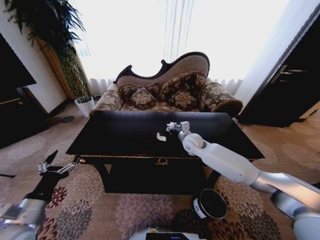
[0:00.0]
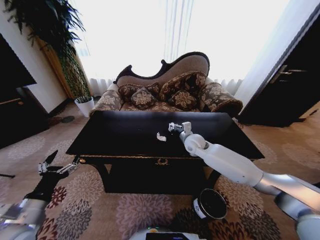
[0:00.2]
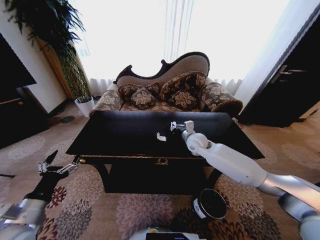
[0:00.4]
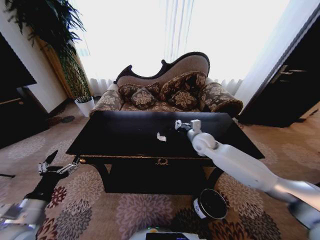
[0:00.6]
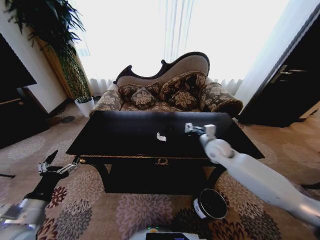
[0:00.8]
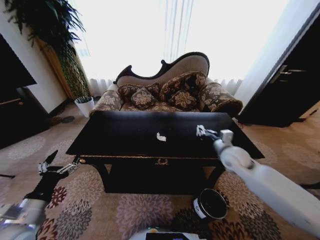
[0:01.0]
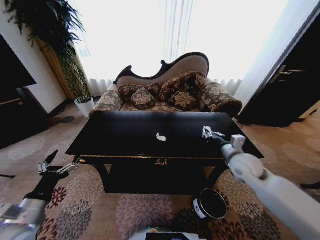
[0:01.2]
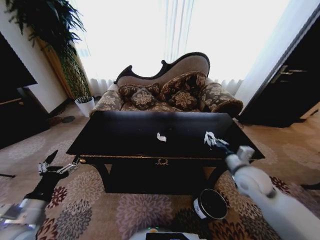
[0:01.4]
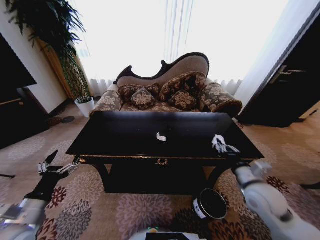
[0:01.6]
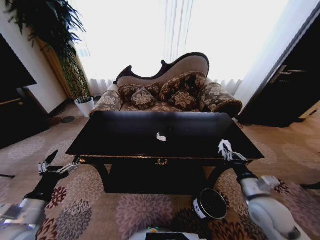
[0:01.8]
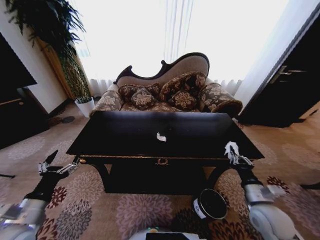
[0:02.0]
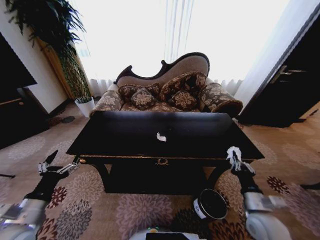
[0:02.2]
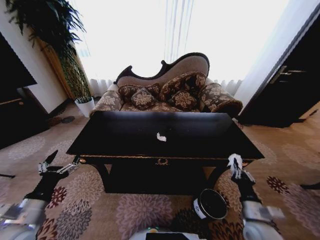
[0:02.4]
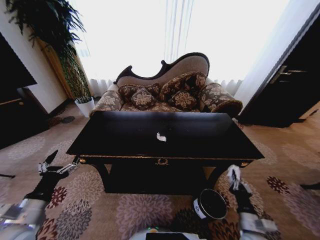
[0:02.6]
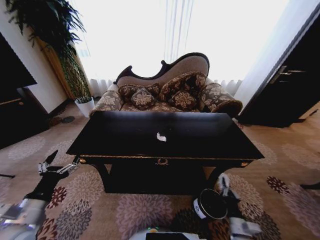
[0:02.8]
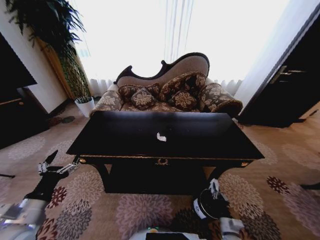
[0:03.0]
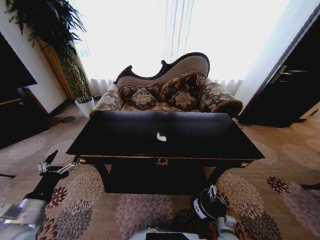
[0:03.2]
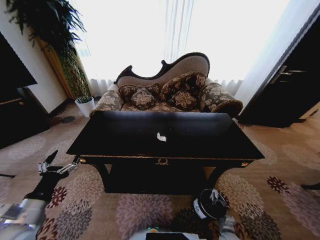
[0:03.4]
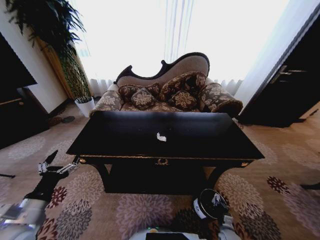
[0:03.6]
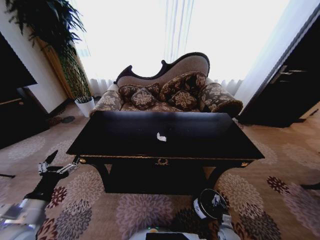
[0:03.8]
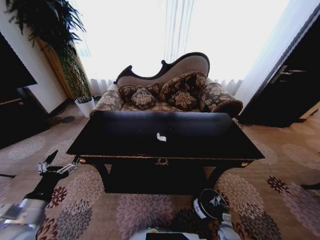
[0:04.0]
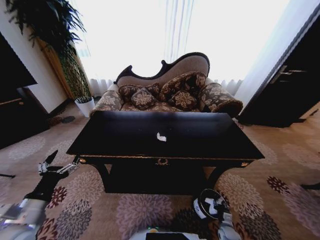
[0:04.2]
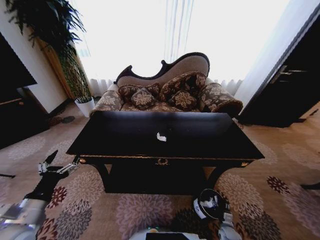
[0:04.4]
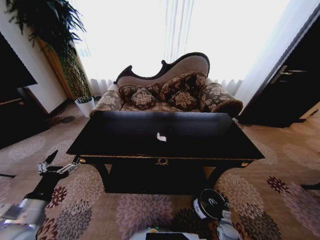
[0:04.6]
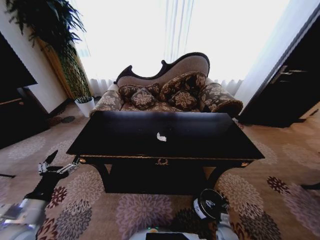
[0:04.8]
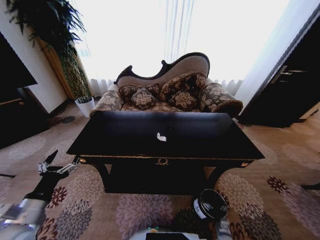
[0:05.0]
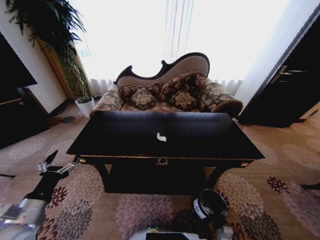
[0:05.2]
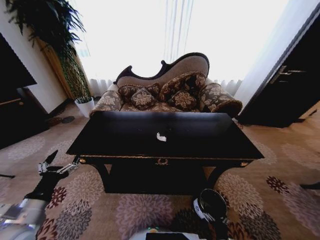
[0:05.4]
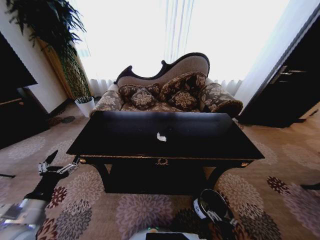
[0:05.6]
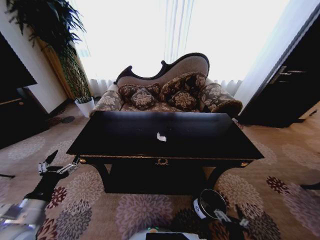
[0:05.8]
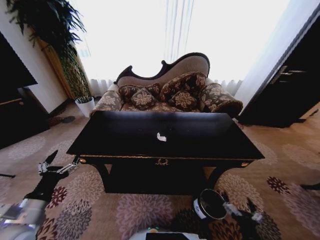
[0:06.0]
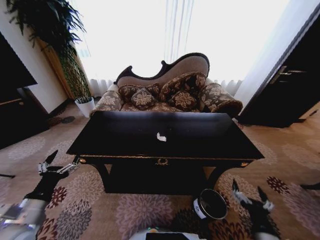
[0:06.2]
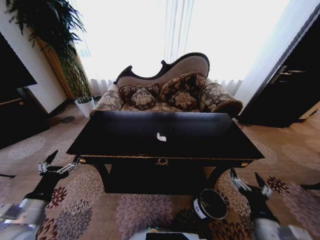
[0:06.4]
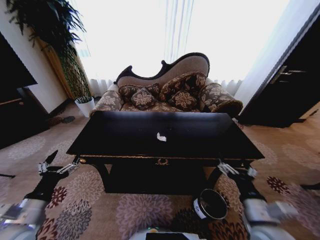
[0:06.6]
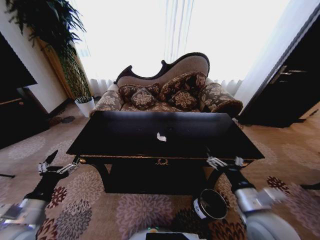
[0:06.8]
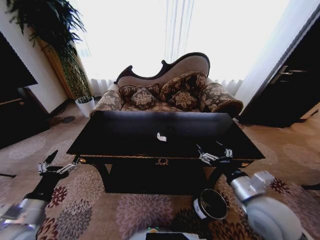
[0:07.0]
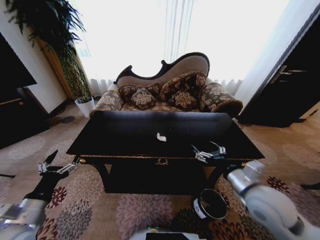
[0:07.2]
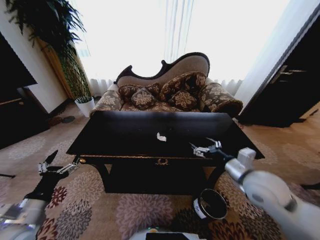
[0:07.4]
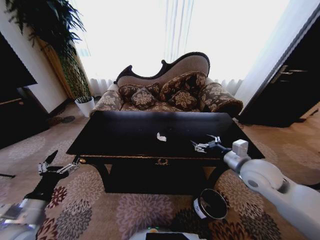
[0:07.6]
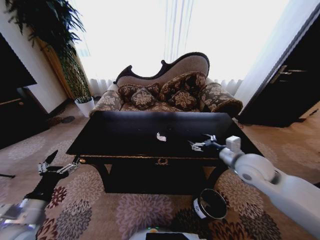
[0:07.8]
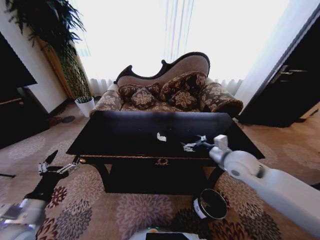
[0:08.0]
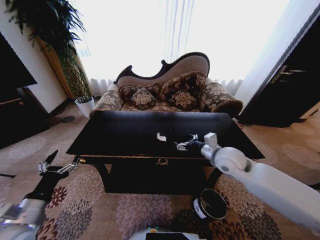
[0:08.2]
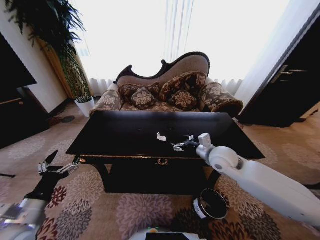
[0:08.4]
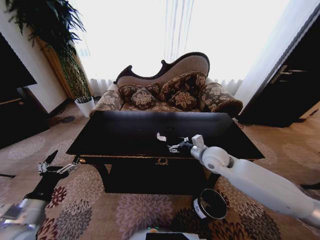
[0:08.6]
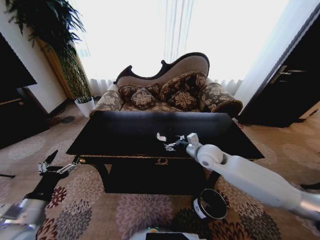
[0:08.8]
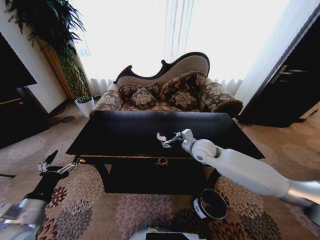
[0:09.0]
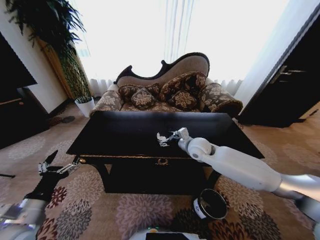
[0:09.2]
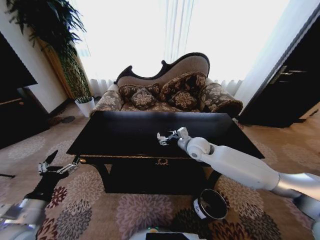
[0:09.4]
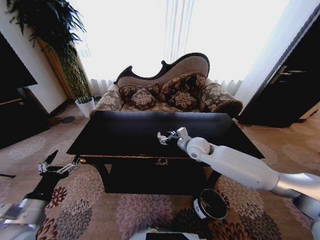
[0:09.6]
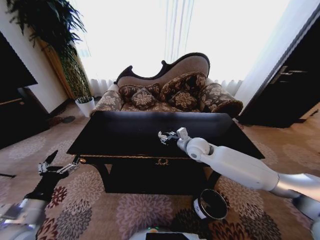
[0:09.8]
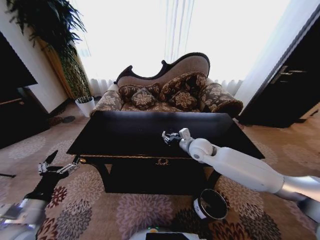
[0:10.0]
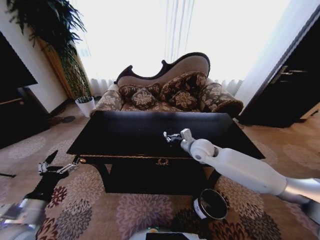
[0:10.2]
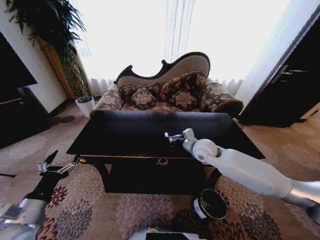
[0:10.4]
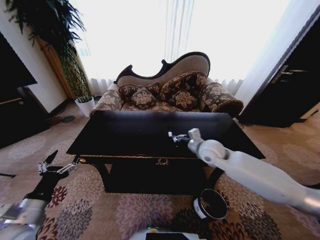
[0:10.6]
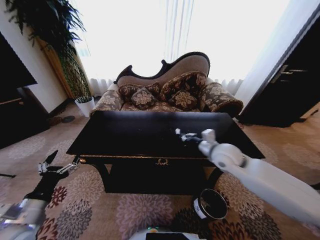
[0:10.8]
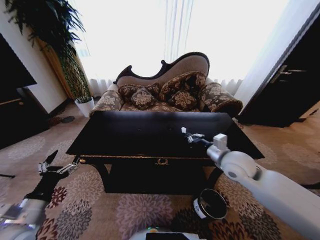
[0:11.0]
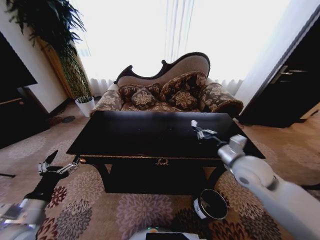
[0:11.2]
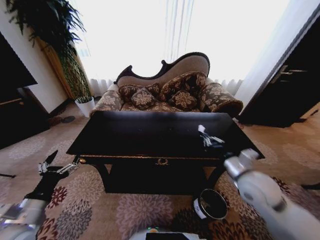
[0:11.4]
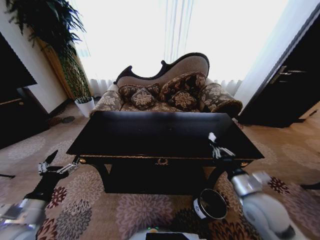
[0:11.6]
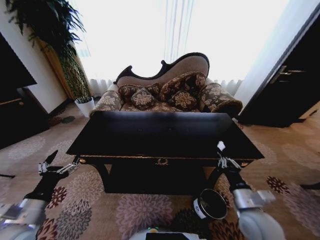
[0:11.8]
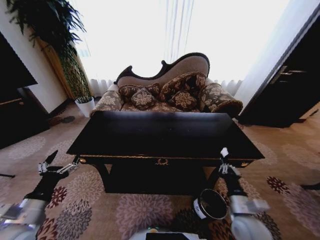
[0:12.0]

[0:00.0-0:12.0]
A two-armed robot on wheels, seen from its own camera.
Task of the whole recording: Move to the front of the table and place the trash on the table into the trash bin.
0:00.0 to 0:01.6: The right gripper heads backward and to the right, covering some 30 cm.
0:01.6 to 0:03.0: The right gripper moves downward and backward, roughly 30 cm.
0:03.0 to 0:04.4: The right gripper goes about 15 cm downward and to the right, and opens its fingers.
0:04.4 to 0:06.0: The right gripper is displaced upward and backward by about 30 cm, and opens its fingers.
0:06.0 to 0:07.6: The right gripper goes some 35 cm forward and upward.
0:07.6 to 0:09.0: The right gripper moves forward and to the left, approximately 15 cm.
0:09.0 to 0:10.4: The right gripper closes.
0:10.4 to 0:12.0: The right gripper travels backward and downward by roughly 30 cm.

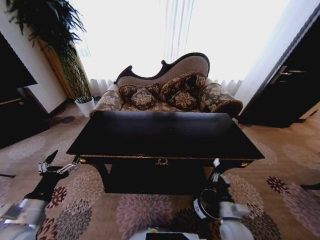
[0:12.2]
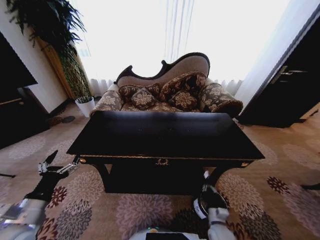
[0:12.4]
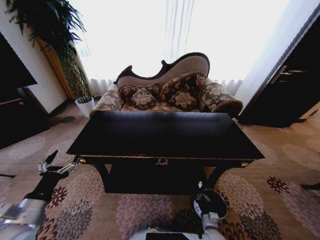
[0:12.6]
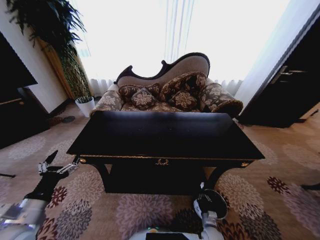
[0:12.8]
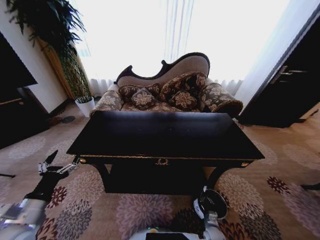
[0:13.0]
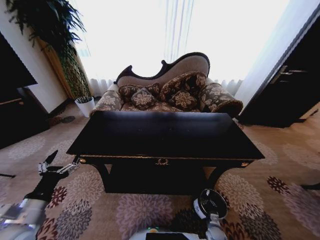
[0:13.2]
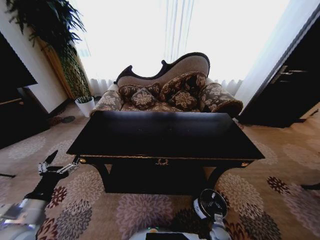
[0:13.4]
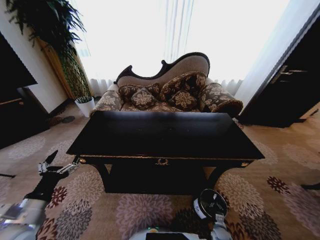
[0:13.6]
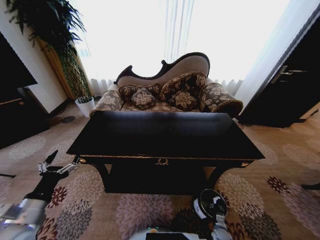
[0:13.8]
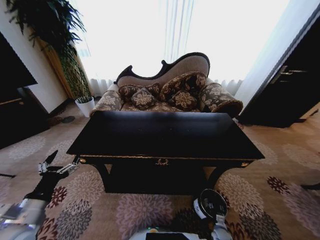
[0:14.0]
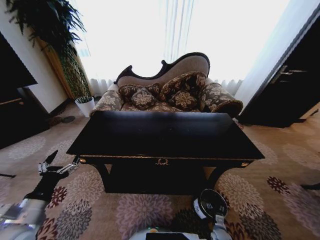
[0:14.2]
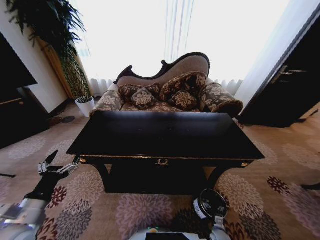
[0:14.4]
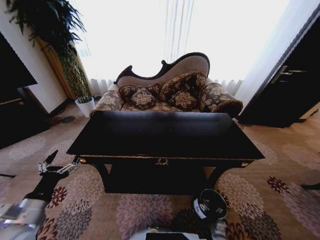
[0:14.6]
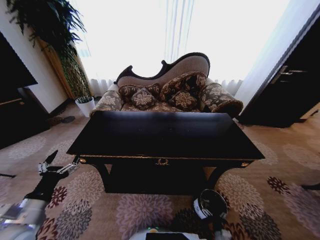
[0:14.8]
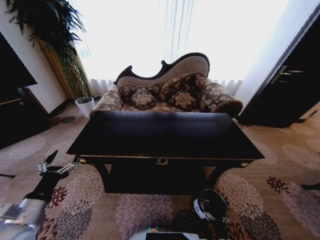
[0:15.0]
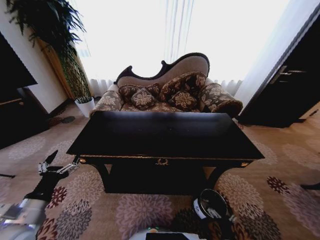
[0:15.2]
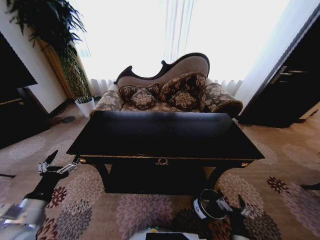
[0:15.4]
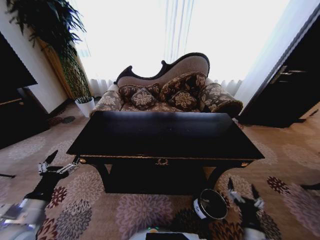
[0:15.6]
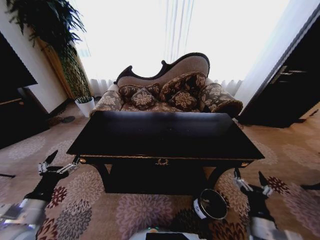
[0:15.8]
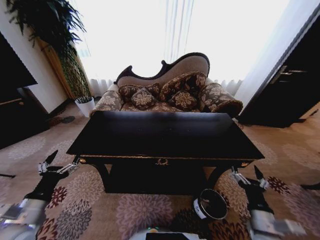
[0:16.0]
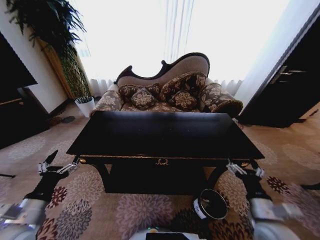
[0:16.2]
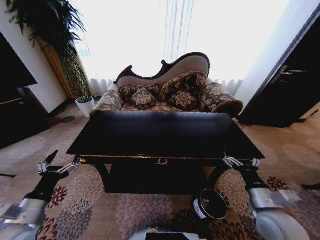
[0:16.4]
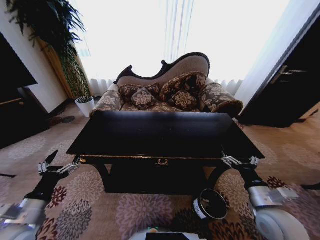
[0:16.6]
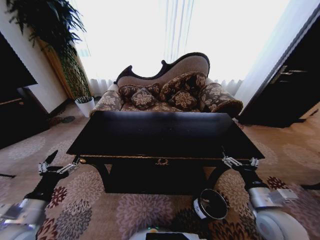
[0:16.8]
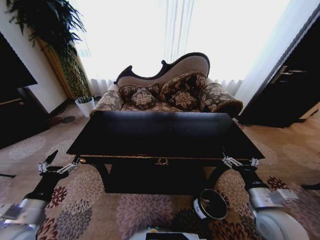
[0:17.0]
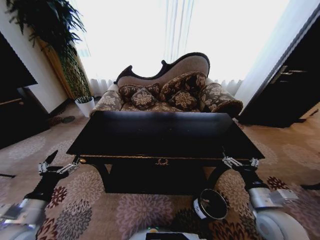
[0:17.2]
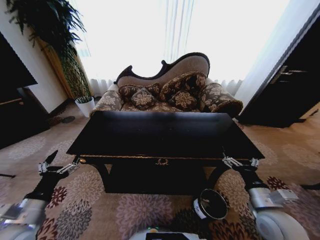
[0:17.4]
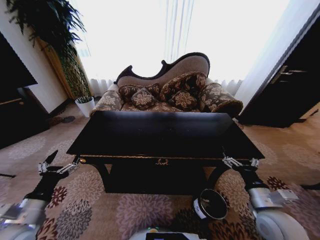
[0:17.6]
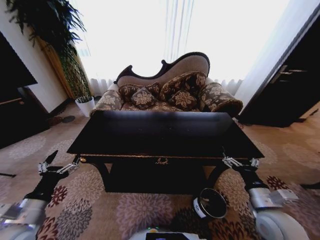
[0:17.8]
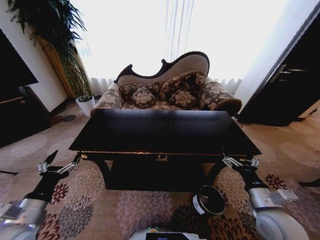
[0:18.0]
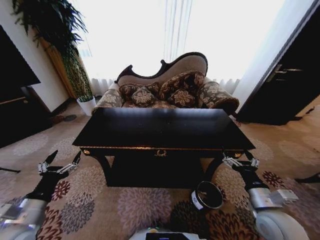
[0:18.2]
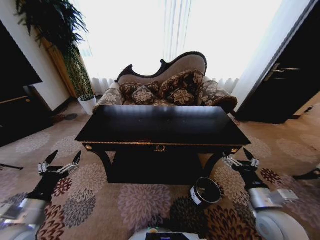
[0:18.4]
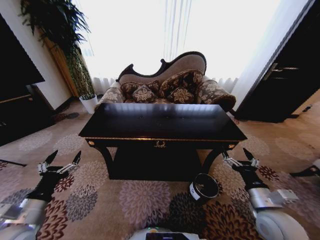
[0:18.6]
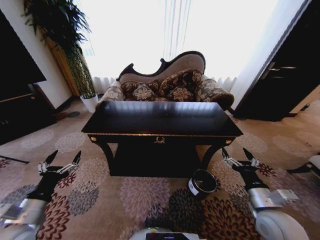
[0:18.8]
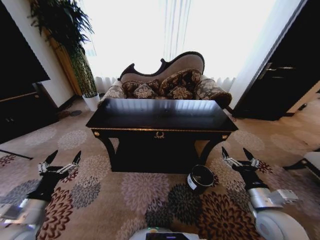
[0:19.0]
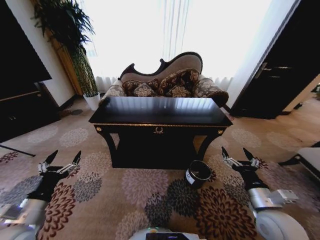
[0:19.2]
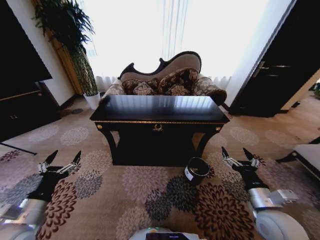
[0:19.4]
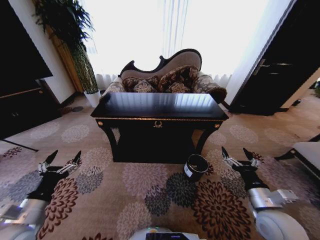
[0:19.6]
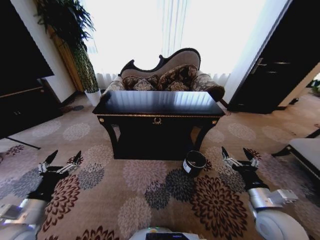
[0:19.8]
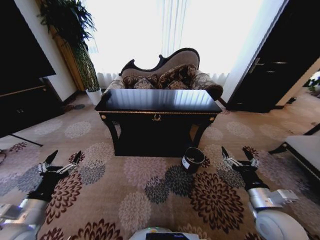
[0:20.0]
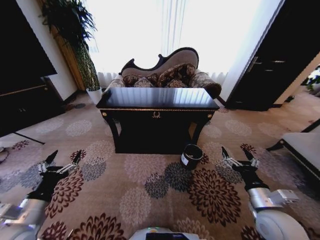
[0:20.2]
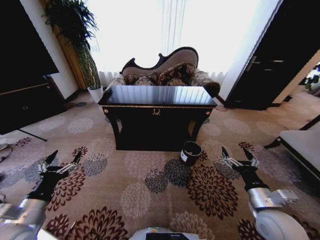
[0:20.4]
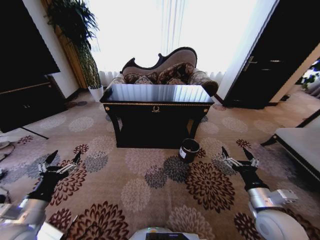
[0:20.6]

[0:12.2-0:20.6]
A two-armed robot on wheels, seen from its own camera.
Task of the whole recording: Move to the front of the table and place the trash on the table into the trash bin.
0:12.2 to 0:13.6: The right gripper is displaced downward by some 25 cm.
0:13.6 to 0:15.0: The right gripper shifts approximately 15 cm backward and upward, and opens.
0:15.0 to 0:16.4: The right gripper travels upward by some 35 cm.
0:16.4 to 0:17.8: Neither gripper changes place.

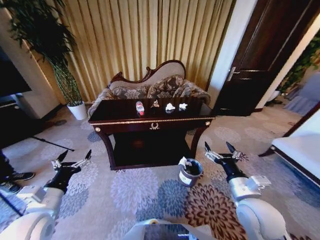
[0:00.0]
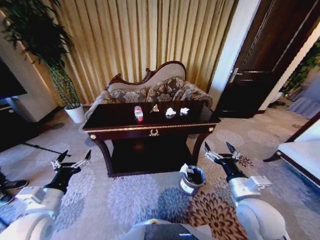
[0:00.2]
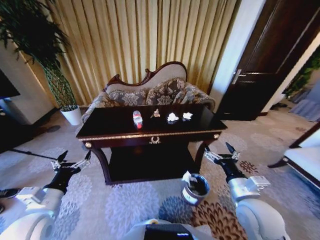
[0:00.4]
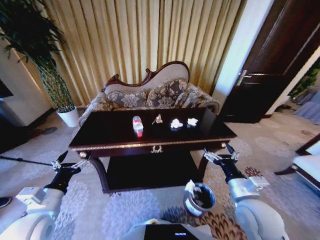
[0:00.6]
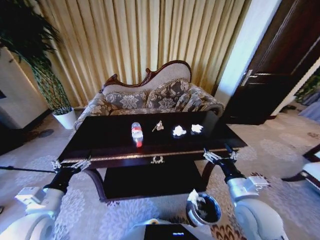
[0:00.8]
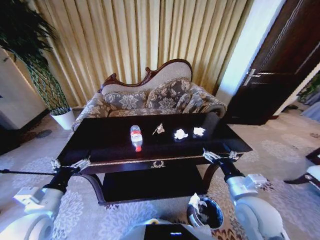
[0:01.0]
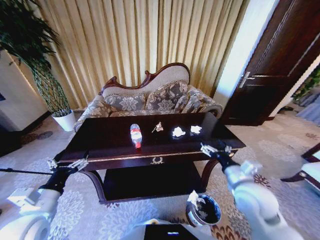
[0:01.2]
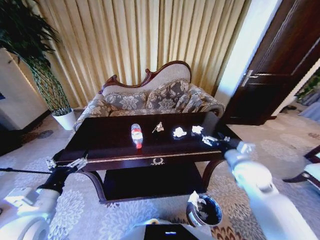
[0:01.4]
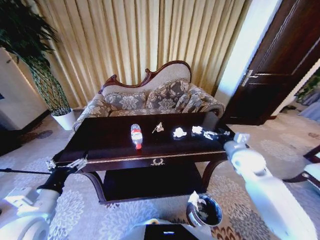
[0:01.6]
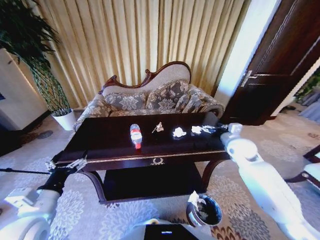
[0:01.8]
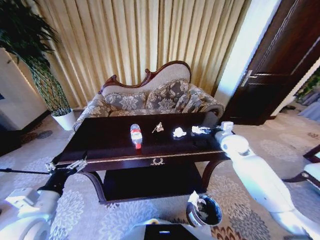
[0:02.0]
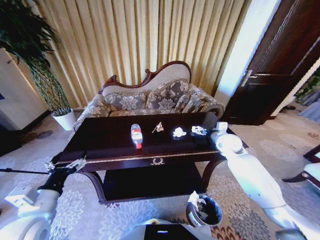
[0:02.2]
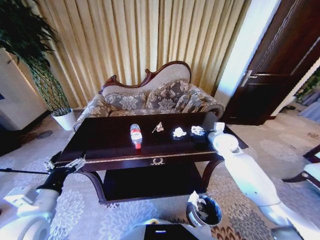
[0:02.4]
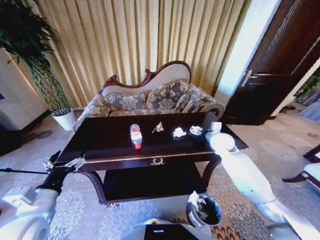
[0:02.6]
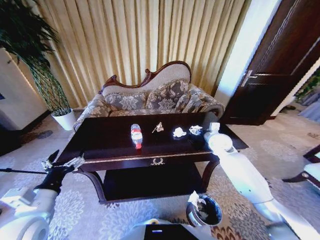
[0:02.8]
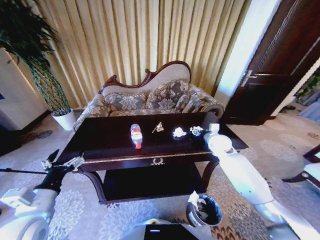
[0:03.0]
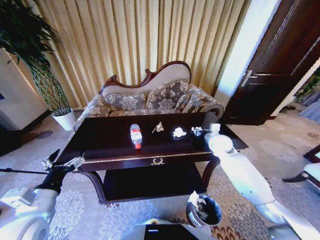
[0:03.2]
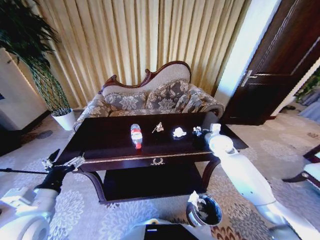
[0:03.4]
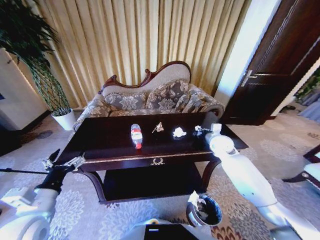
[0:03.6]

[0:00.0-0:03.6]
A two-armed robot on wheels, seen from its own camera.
Task of the whole recording: Move to the front of the table and place the trash on the table into the trash bin.
0:00.0 to 0:01.8: The right gripper heads forward, covering some 25 cm.
0:01.8 to 0:03.6: The right gripper moves roughly 5 cm, and closes up.
